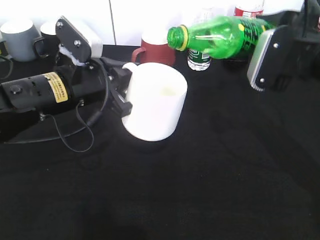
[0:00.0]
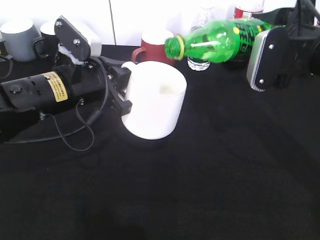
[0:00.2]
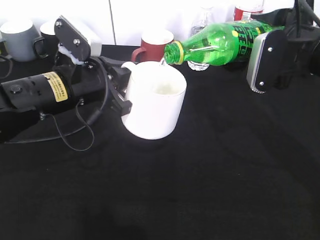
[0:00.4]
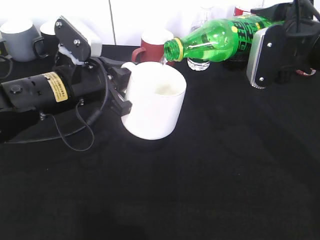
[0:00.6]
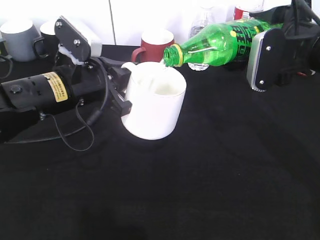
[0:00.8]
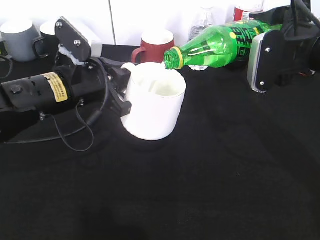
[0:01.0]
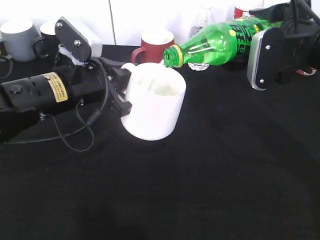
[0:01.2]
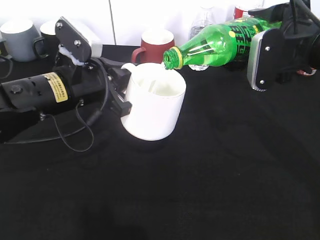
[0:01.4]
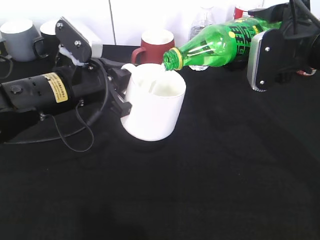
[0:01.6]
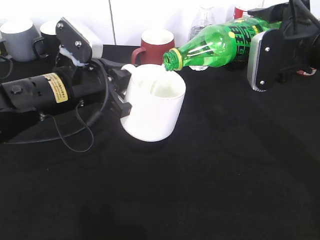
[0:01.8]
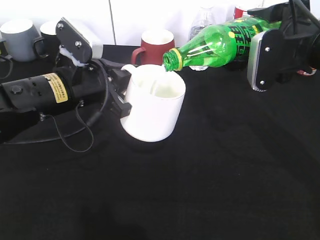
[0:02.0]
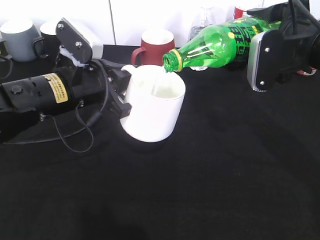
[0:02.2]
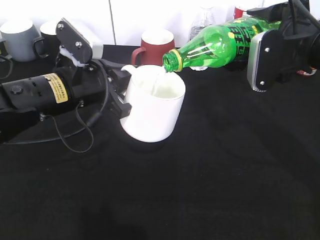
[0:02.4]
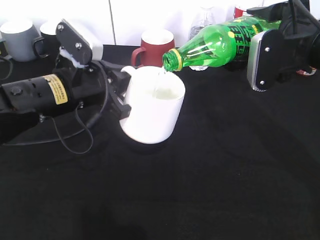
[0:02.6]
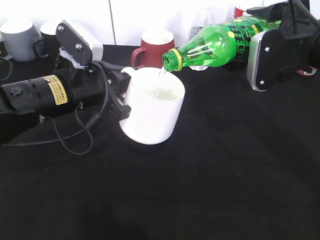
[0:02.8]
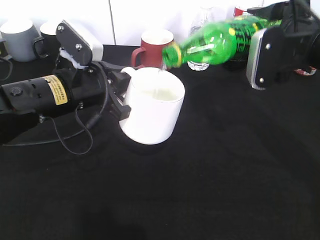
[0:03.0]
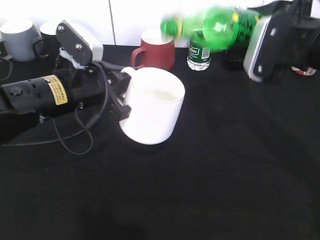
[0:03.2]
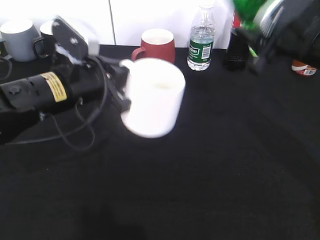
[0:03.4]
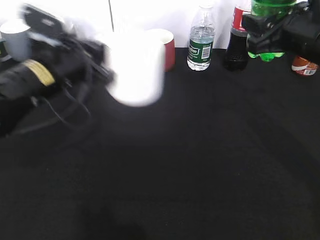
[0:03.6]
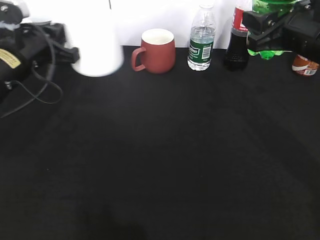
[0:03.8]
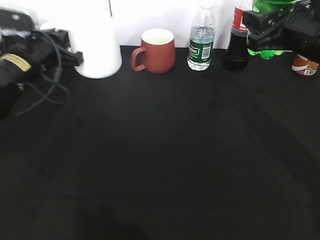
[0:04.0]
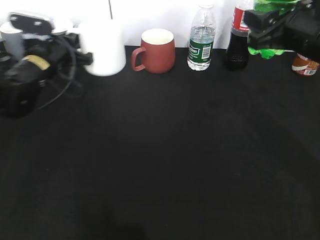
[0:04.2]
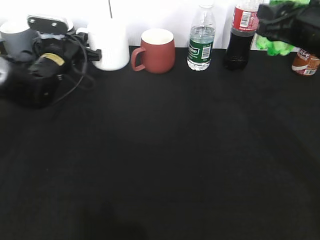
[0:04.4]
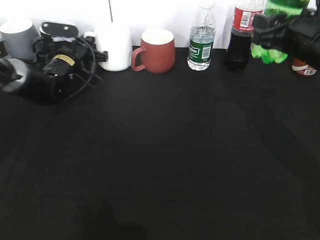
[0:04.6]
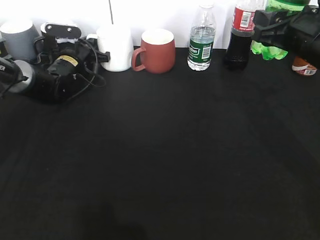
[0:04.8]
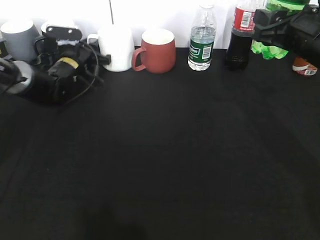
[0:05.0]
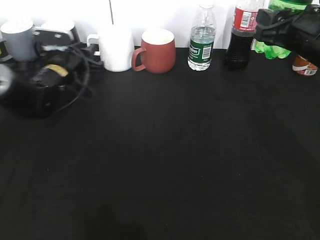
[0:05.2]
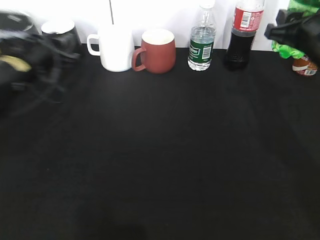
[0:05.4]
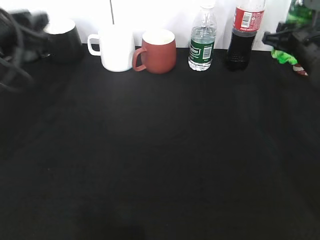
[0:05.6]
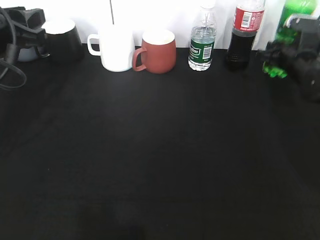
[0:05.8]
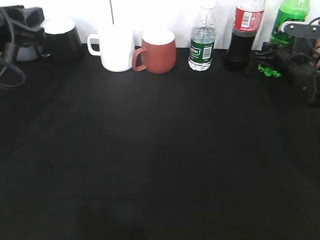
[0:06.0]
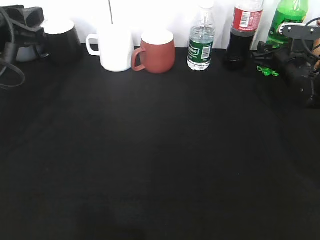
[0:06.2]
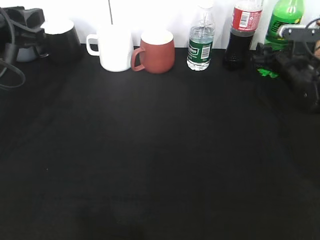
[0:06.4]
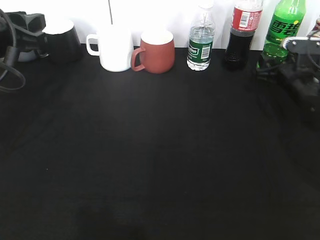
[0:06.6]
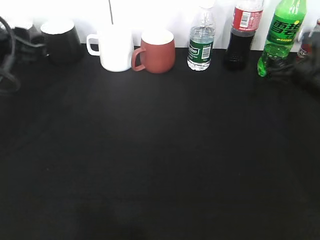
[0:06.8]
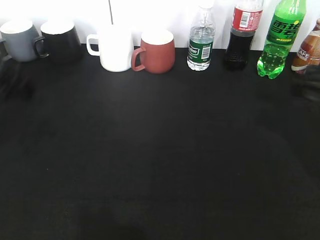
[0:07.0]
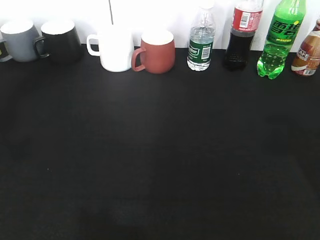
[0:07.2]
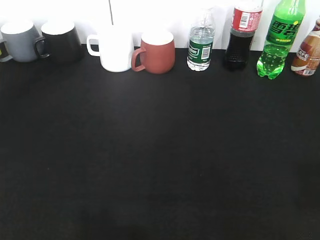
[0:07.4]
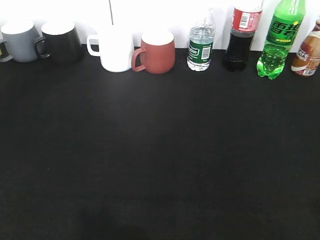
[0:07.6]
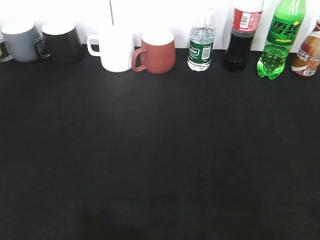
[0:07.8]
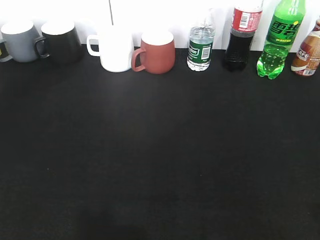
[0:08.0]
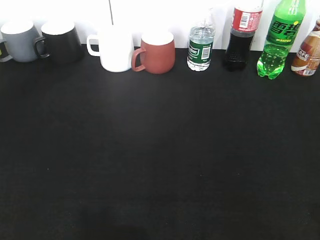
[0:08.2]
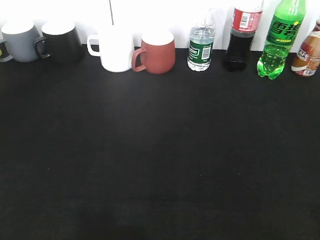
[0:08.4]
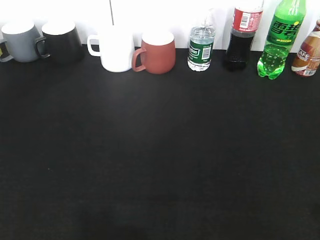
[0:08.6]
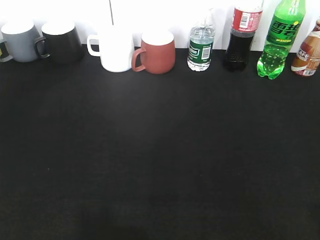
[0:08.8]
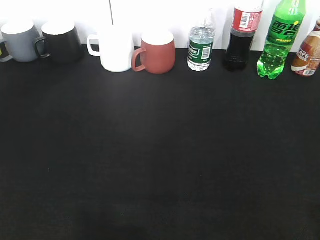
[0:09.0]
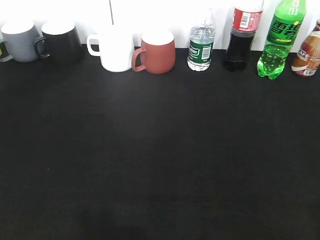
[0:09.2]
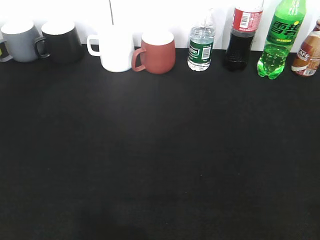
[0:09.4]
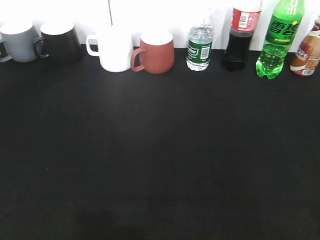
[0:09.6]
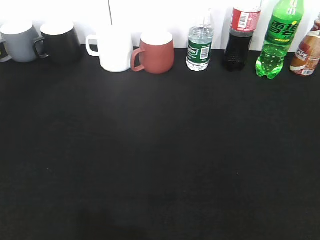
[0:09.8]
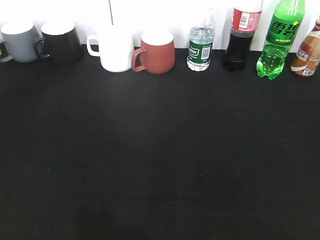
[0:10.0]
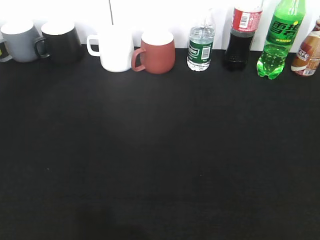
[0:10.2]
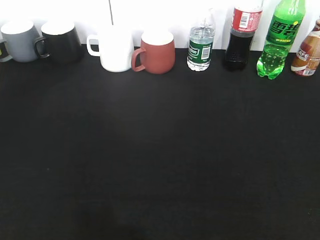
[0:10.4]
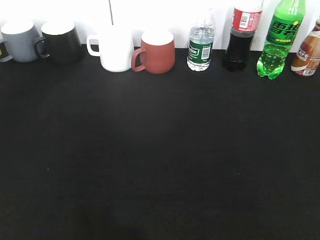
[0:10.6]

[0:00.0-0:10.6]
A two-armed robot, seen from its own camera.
Step, 0:00.0 to 0:03.0: Pour the sprite from bottle to cup with right gripper.
Step, 0:03.4 to 0:06.4: Place the sprite bottle on the table with right gripper.
0:00.0 to 0:01.6: The grippers stay close to where they were, moving slightly.
0:01.6 to 0:03.0: Neither gripper changes place.
0:03.0 to 0:04.6: The left gripper is displaced forward by roughly 20 cm.
0:04.6 to 0:06.0: The right gripper shifts some 20 cm forward, downward and to the right. The left gripper moves backward and upward, some 25 cm, and opens.
0:06.0 to 0:07.6: The right gripper goes some 50 cm backward and upward, and opens up, while the left gripper moves backward, approximately 25 cm, and opens up.
